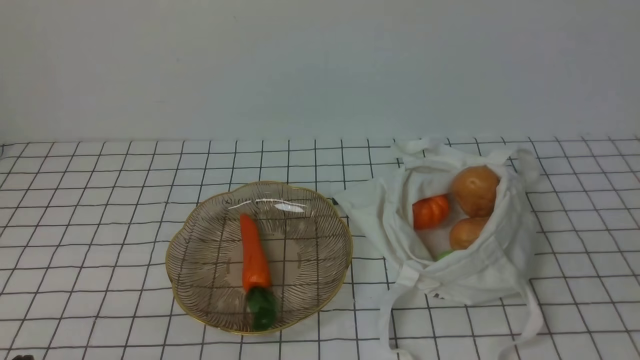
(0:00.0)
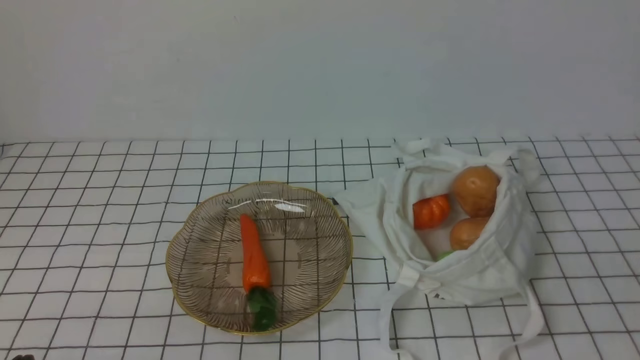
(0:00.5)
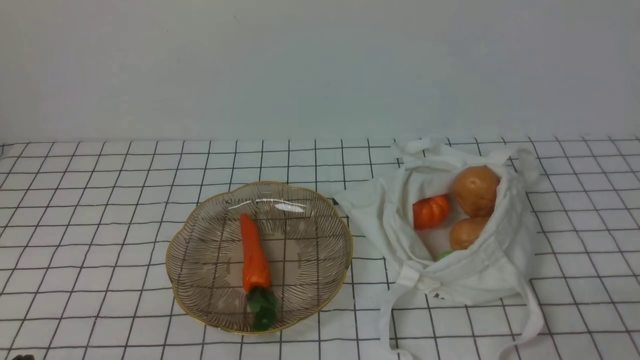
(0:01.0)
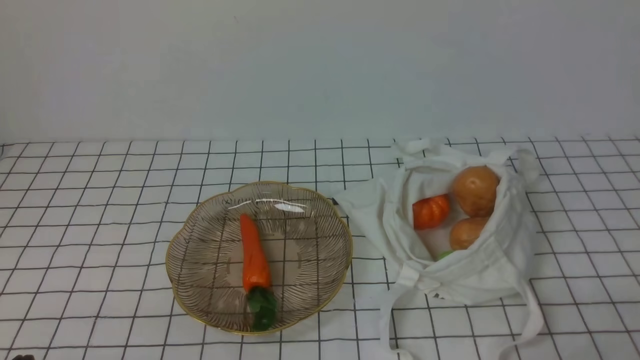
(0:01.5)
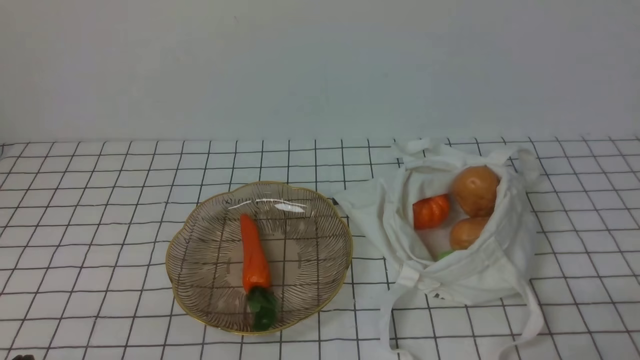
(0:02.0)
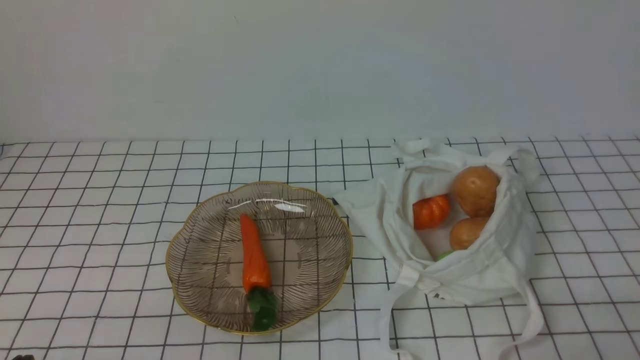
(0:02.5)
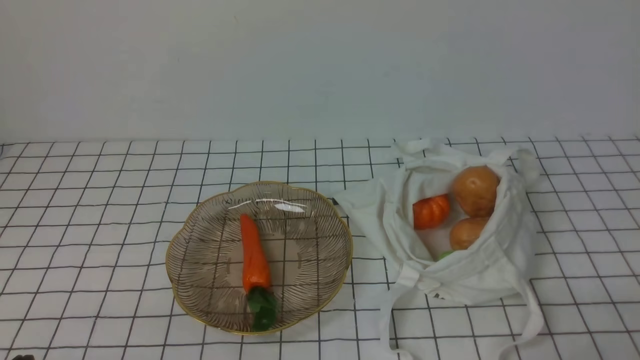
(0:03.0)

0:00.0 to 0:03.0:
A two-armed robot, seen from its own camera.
Task of the whole recording: take vegetables from bag on white checkered tablecloth place on plate.
0:01.5 to 0:03.0: The two grippers keep their place.
